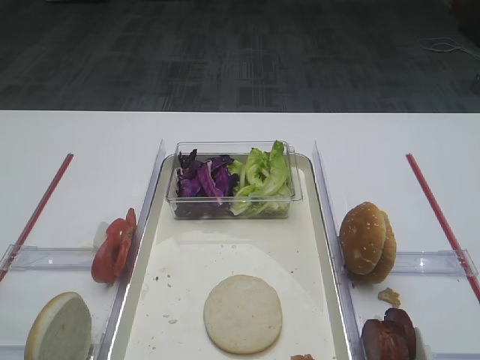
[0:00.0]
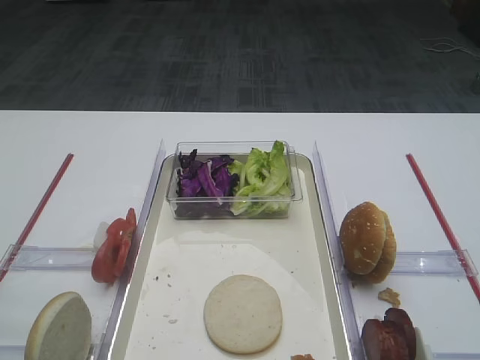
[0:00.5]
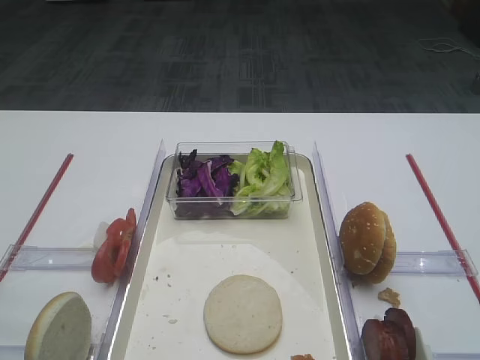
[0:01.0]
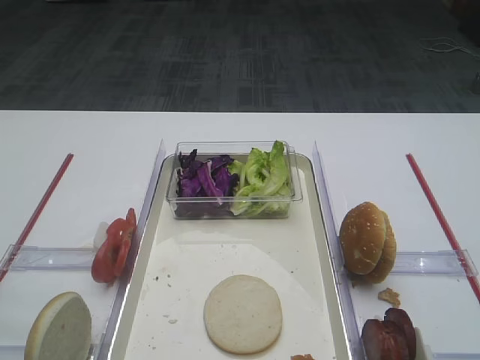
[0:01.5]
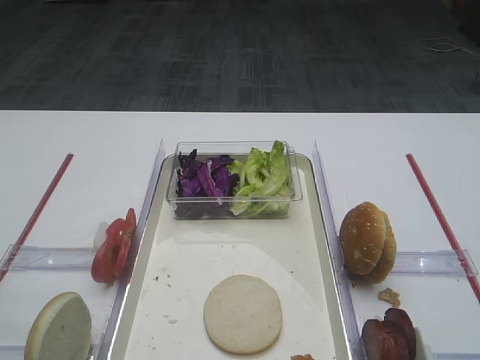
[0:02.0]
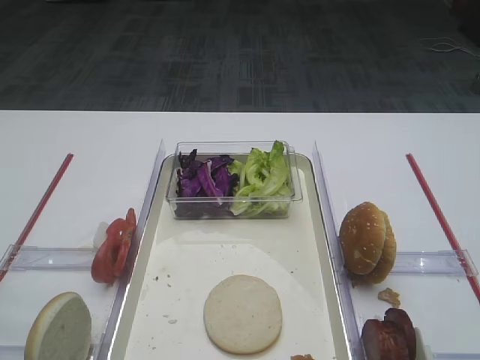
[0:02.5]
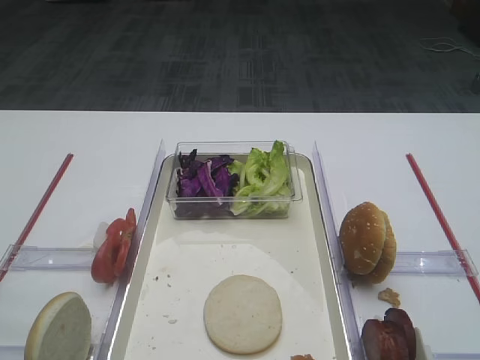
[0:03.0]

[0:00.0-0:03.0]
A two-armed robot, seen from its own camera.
0:01.5 to 0:03.0: Both grippers stay about where they are.

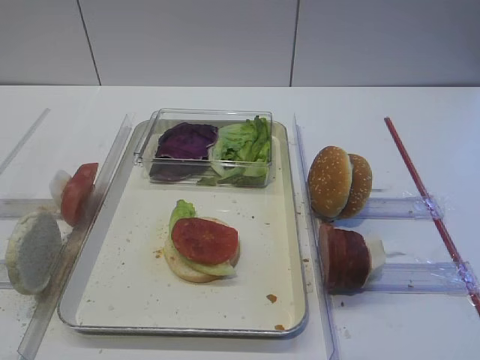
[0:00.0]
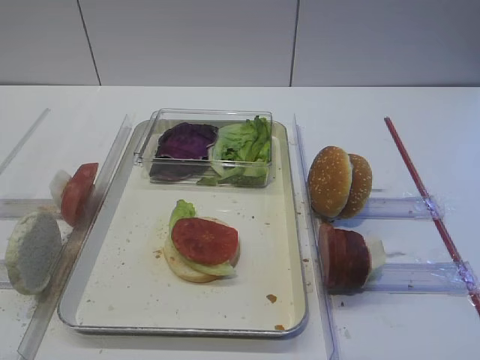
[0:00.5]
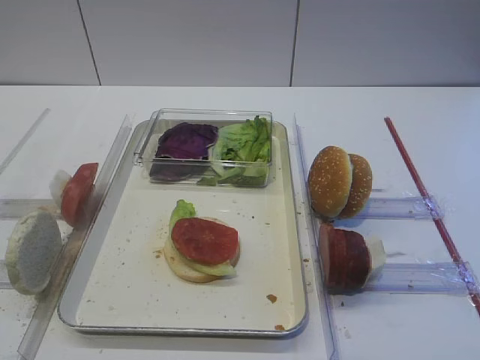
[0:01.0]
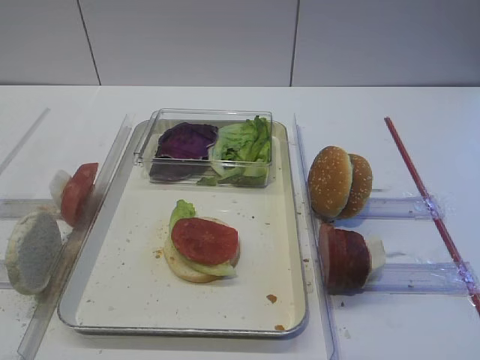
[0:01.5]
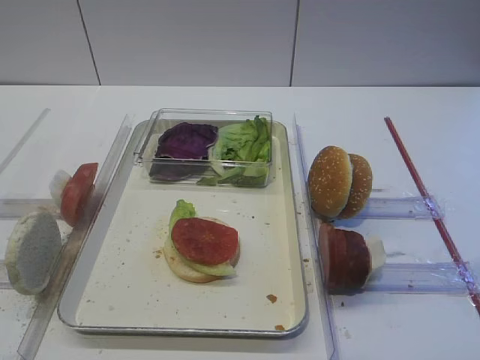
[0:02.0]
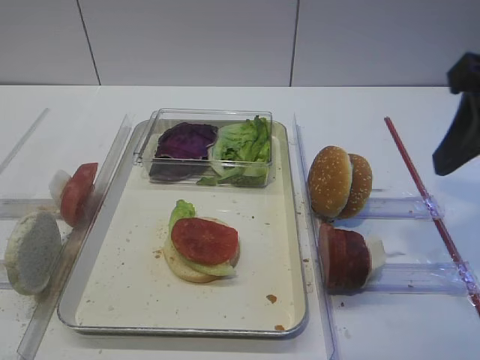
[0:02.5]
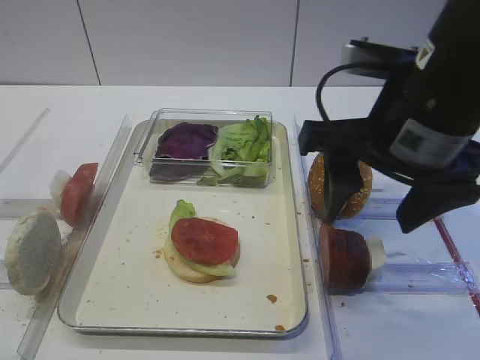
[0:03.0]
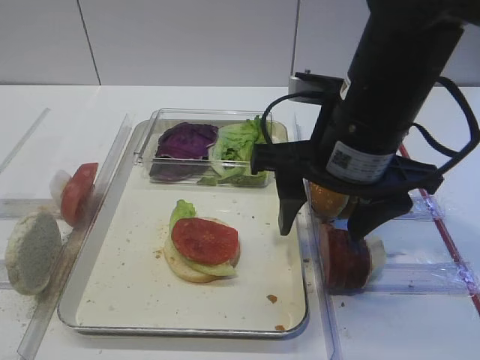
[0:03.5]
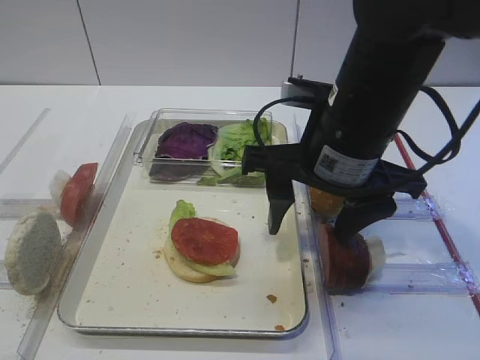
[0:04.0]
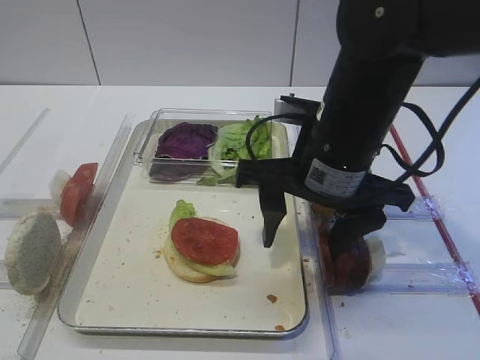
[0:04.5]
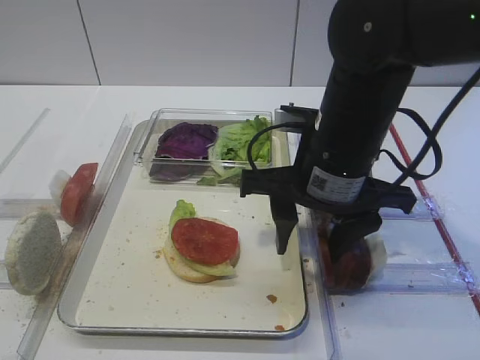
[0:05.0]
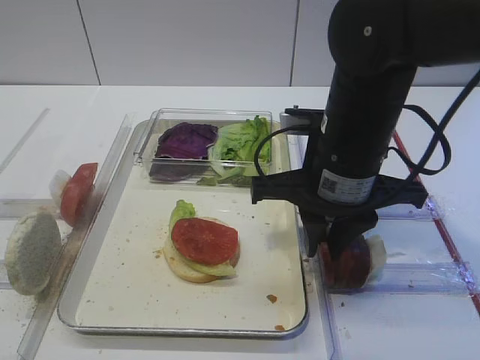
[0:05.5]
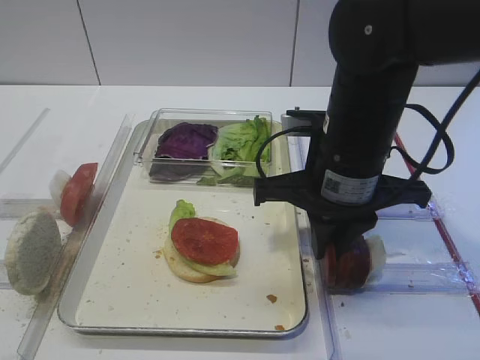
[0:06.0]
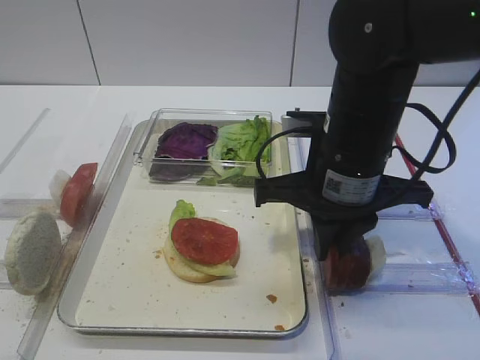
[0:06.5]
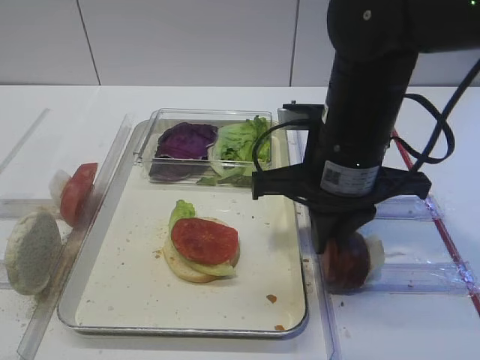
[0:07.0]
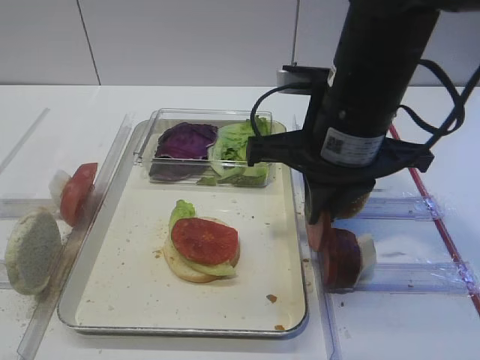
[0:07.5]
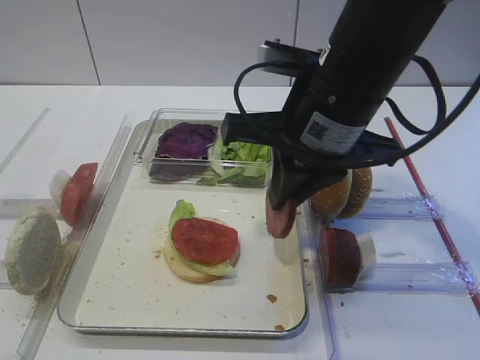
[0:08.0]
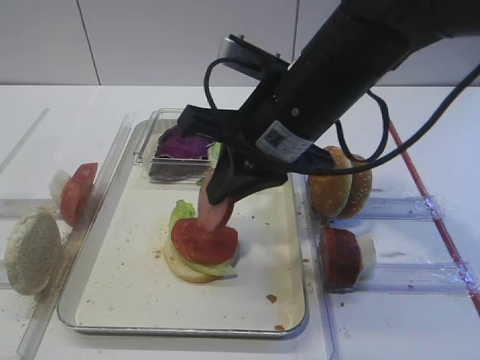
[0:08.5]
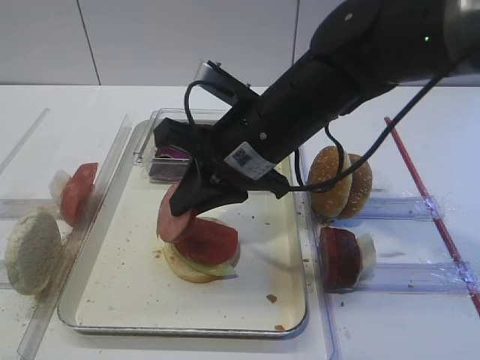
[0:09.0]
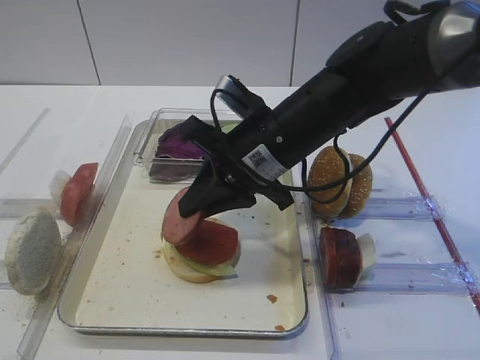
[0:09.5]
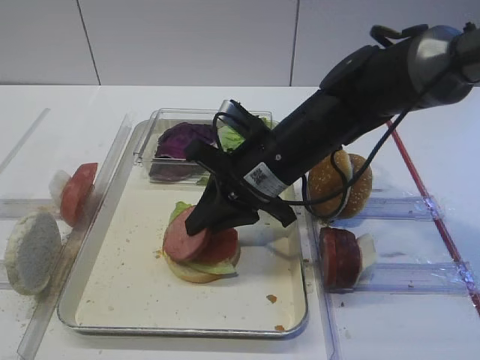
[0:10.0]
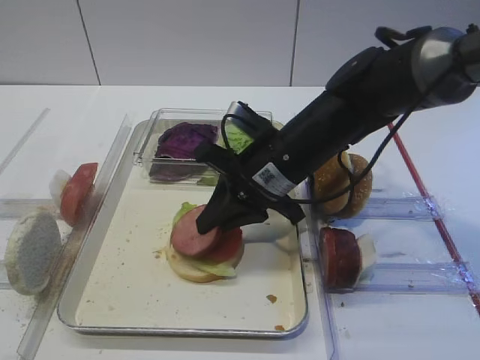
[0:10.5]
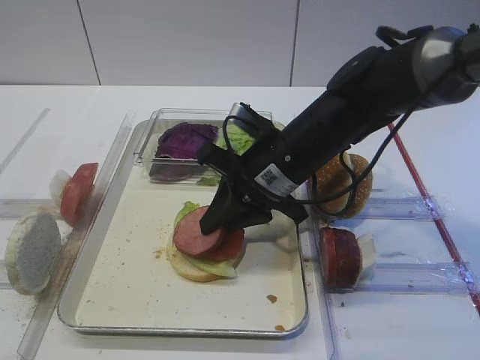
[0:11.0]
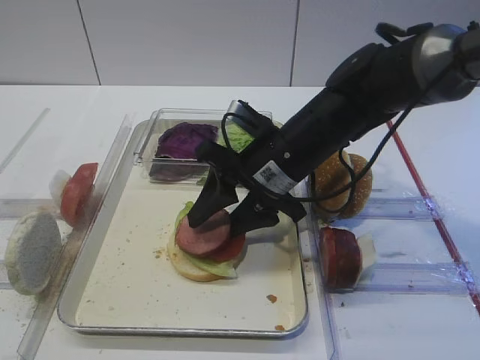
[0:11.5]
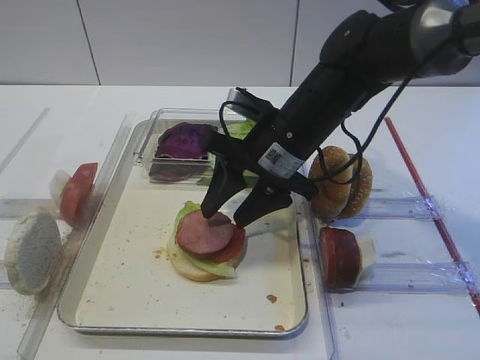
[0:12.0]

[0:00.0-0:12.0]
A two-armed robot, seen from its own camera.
Step, 0:00.0 to 0:07.5: Pick up the cutlet with the right gripper.
0:02.0 to 0:04.0: The right gripper shifts approximately 25 cm to the left, forward and downward.
0:04.0 to 0:06.0: The right gripper closes.
0:06.0 to 0:08.0: The right gripper shifts about 5 cm upward.
0:08.0 to 0:10.0: The right gripper moves downward and forward, about 10 cm.
0:10.0 to 0:12.0: The right gripper opens up.

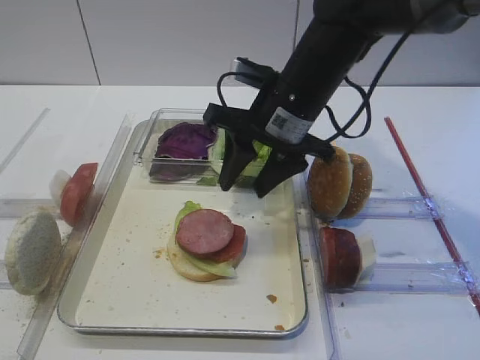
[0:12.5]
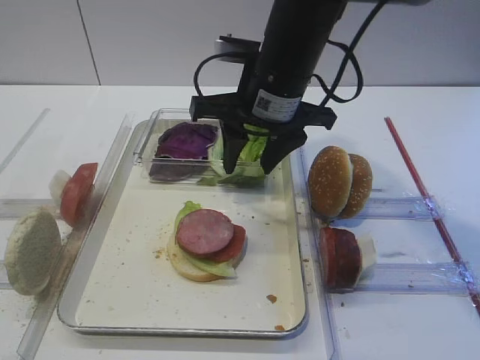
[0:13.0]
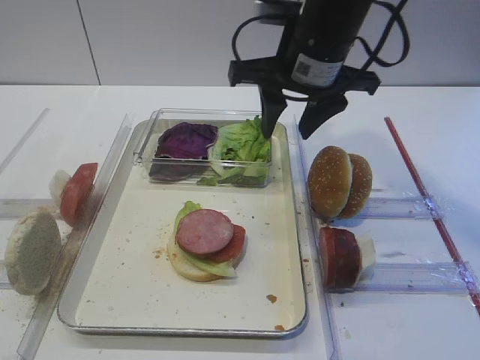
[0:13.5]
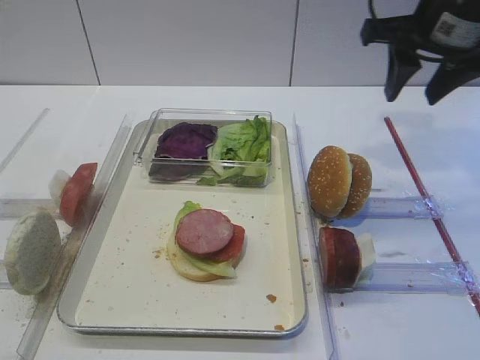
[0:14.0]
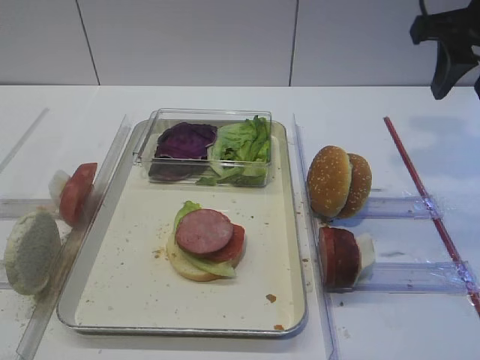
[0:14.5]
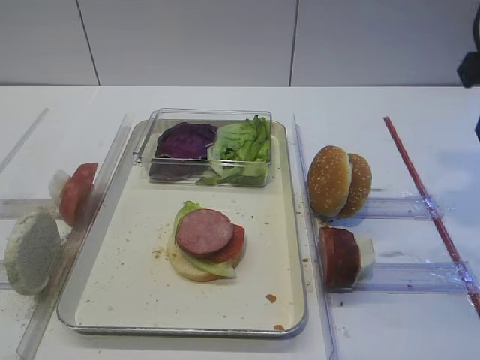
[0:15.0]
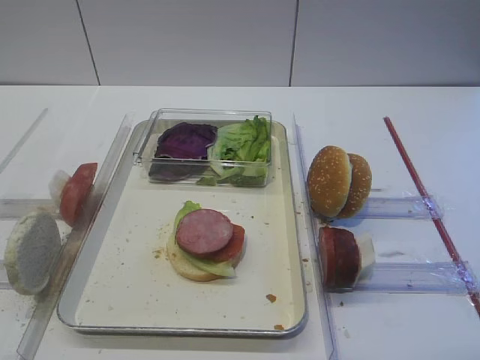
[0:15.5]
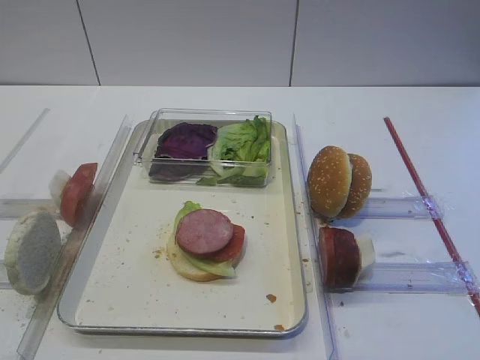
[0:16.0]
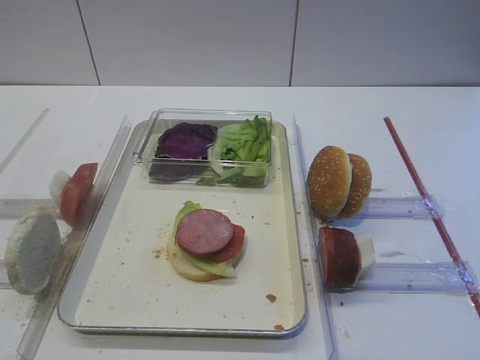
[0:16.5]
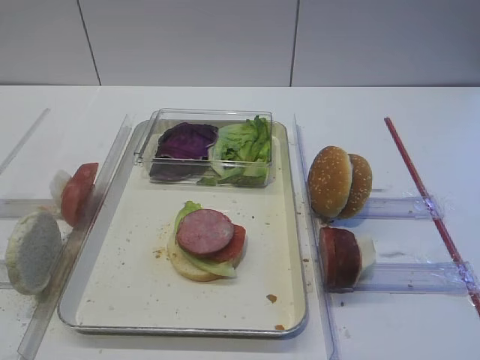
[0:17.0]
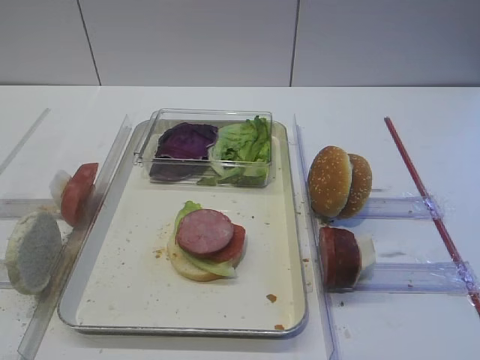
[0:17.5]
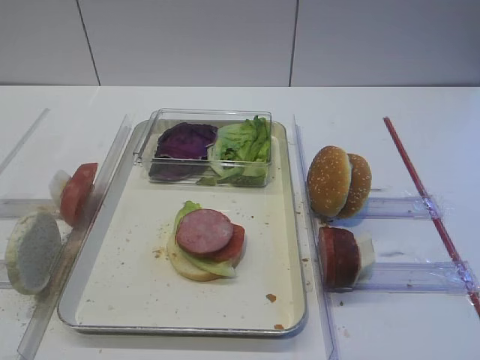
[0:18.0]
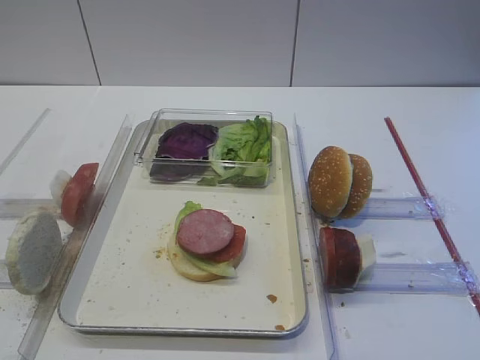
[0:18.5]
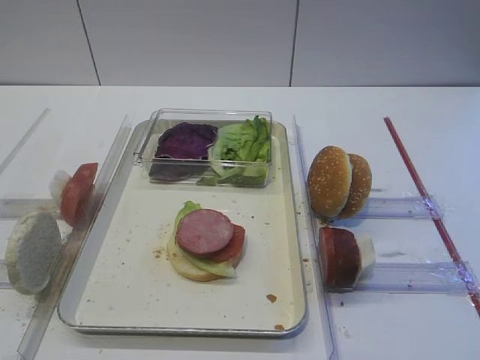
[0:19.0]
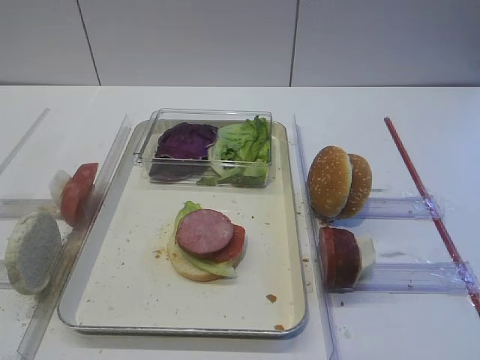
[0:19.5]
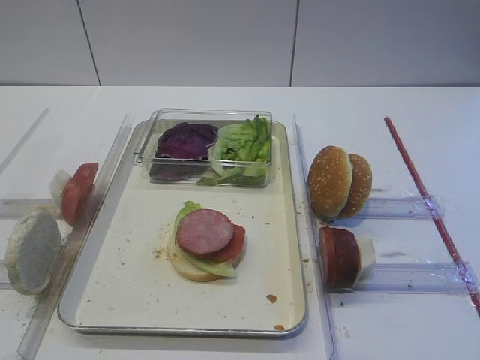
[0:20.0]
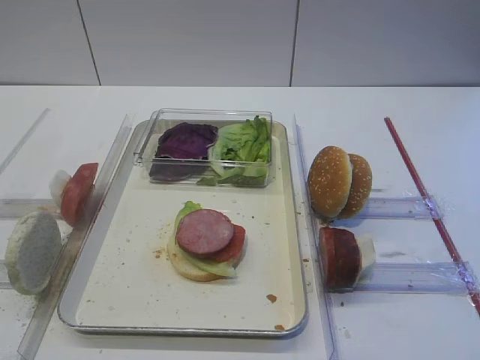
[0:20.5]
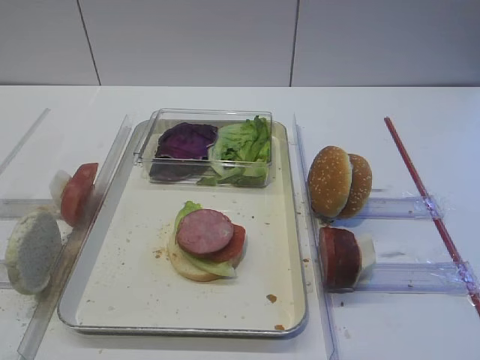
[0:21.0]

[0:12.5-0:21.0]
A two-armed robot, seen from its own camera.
0:12.5 to 0:14.5: The right gripper goes roughly 20 cm to the right and upward.
0:14.5 to 0:16.5: The right gripper heads backward, covering some 30 cm.
0:19.0 to 0:21.0: Neither gripper changes place.

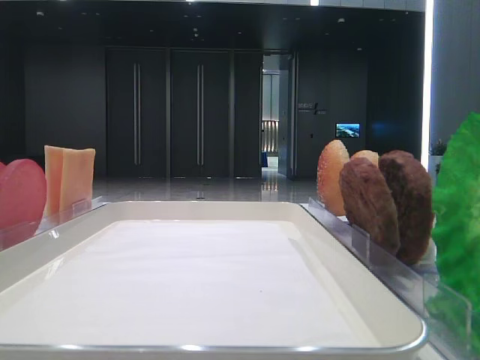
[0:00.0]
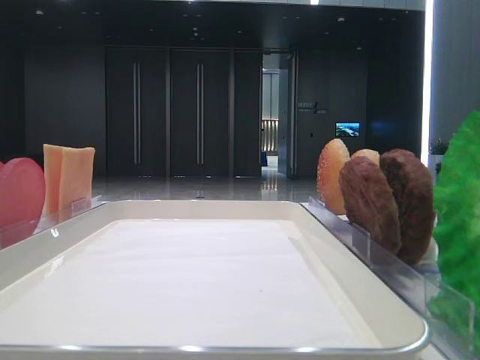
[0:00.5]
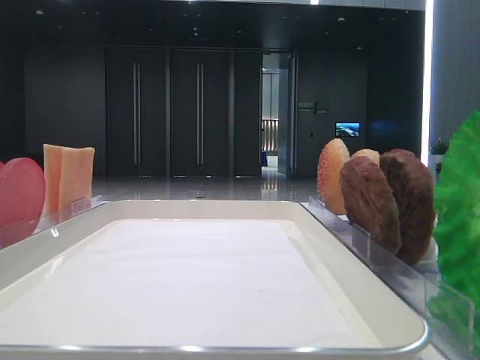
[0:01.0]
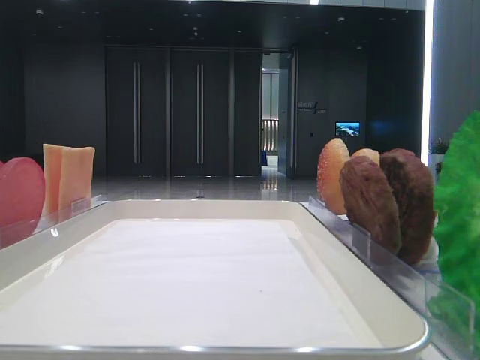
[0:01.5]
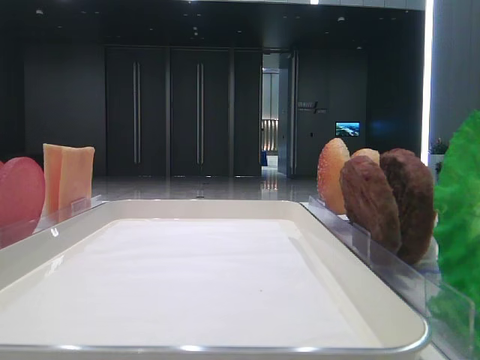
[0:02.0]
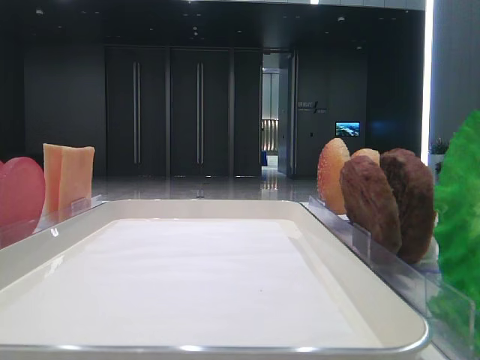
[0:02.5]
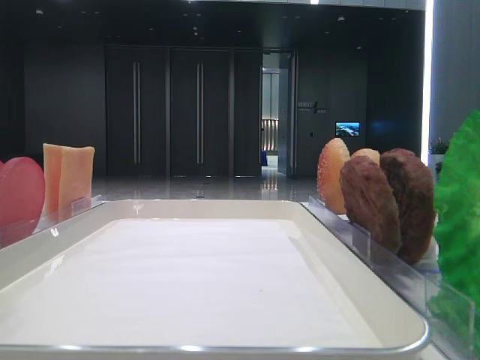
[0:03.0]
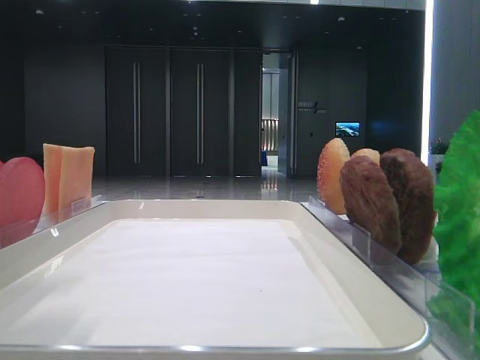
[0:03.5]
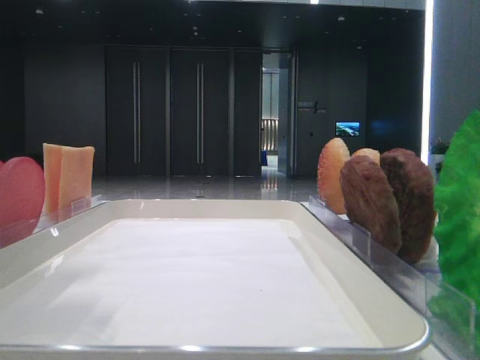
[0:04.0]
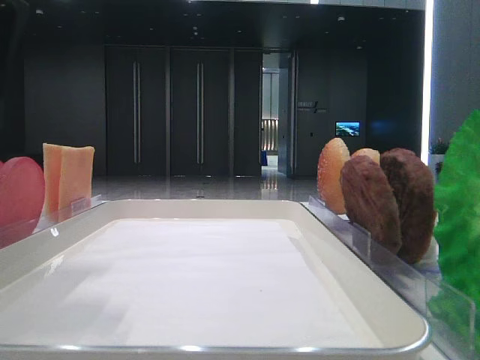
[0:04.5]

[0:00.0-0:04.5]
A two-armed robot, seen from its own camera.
0:00.0 to 0:02.0: The left gripper travels forward by approximately 20 cm.
0:02.0 to 0:04.5: The left gripper is displaced to the right and downward by some 15 cm.
